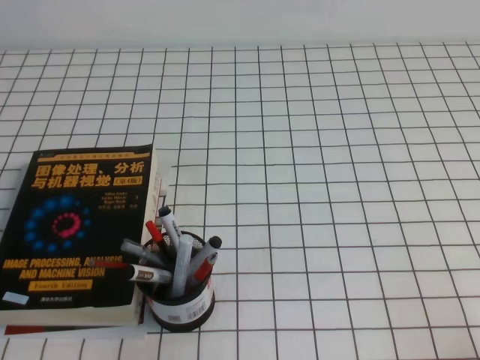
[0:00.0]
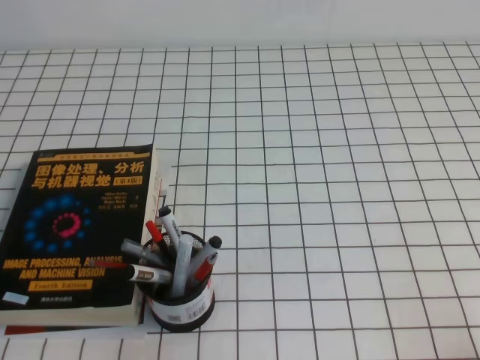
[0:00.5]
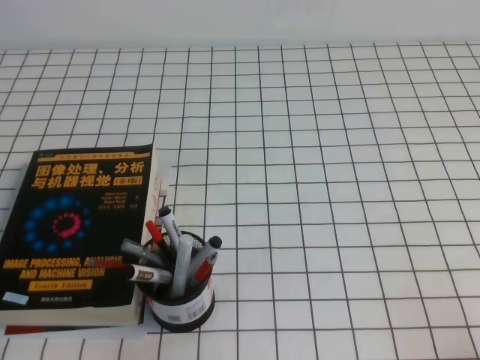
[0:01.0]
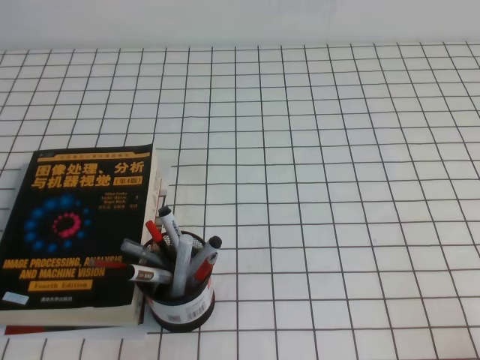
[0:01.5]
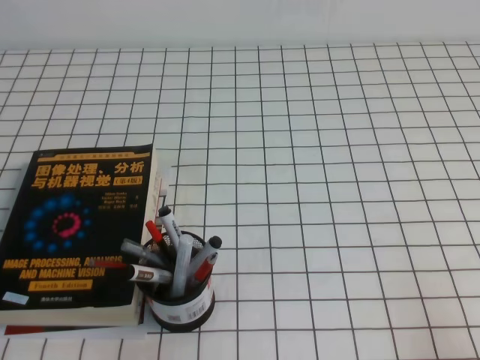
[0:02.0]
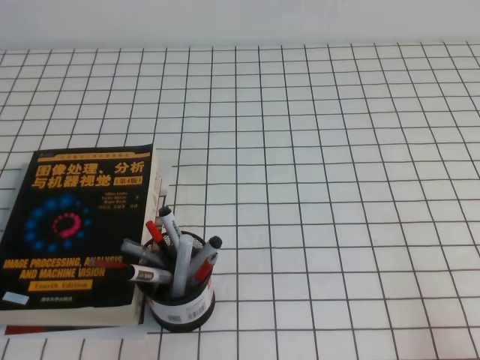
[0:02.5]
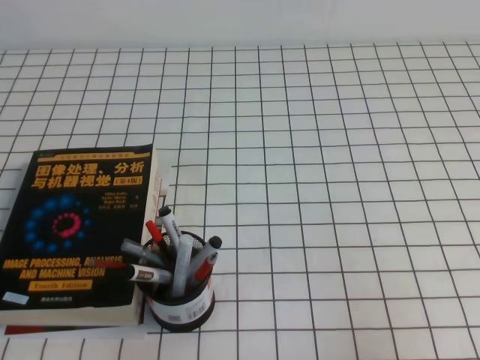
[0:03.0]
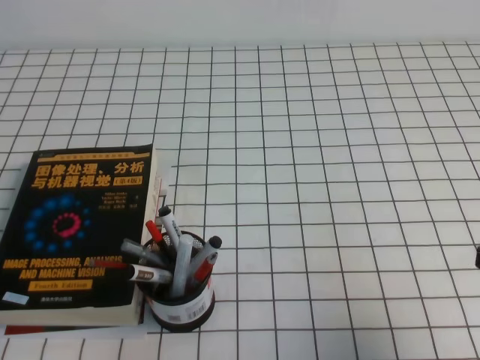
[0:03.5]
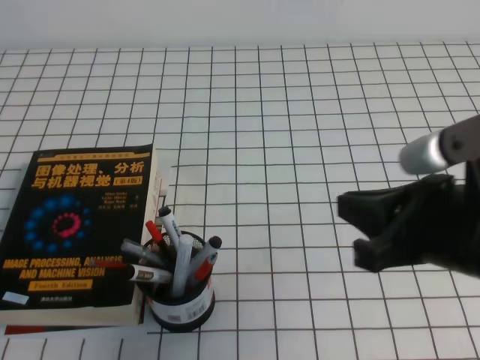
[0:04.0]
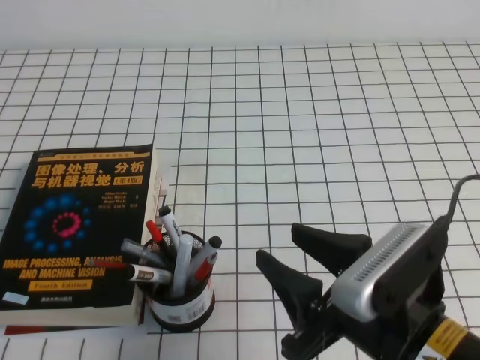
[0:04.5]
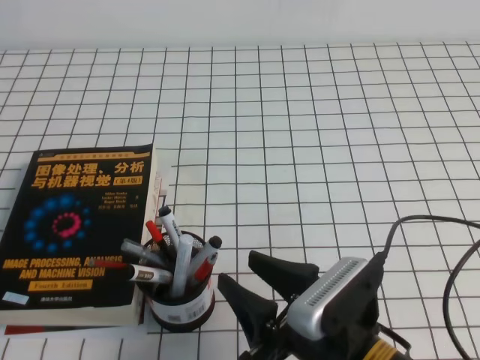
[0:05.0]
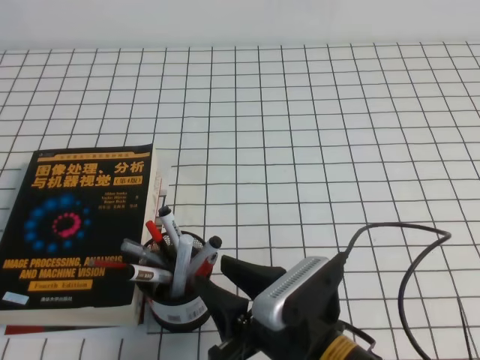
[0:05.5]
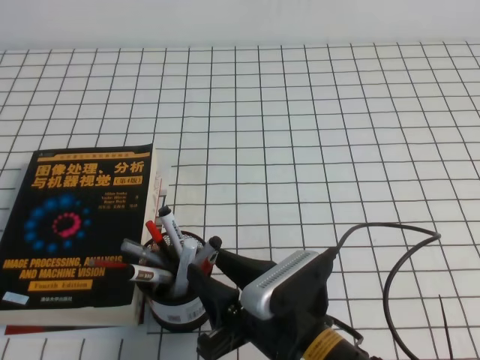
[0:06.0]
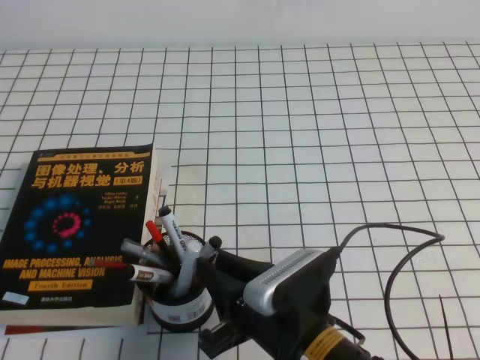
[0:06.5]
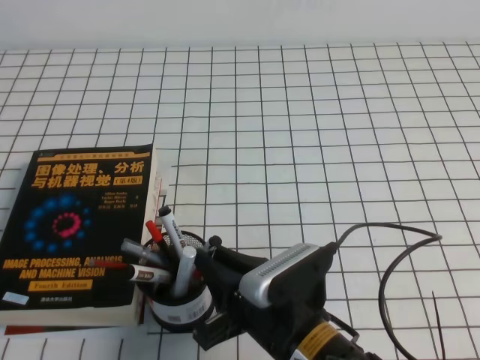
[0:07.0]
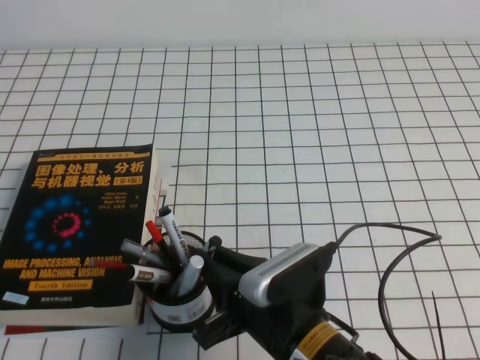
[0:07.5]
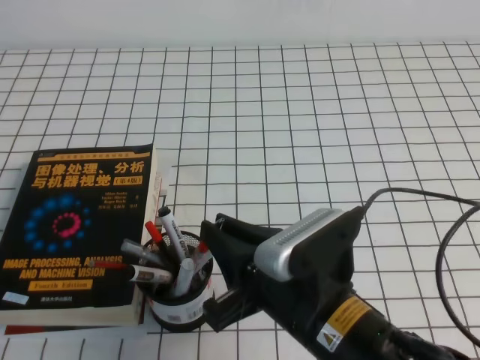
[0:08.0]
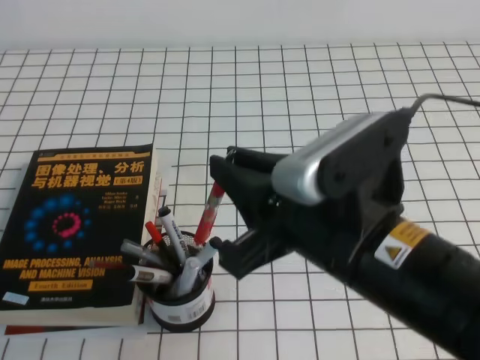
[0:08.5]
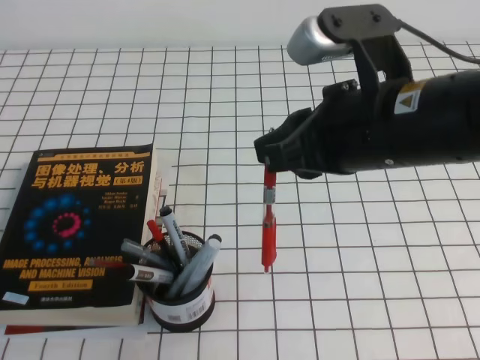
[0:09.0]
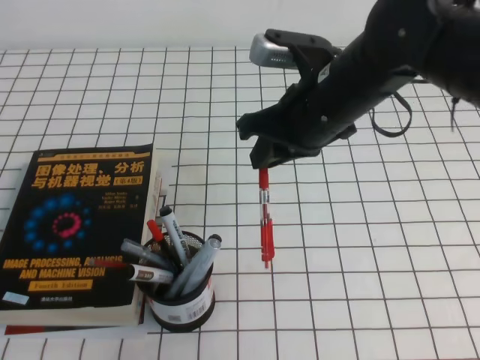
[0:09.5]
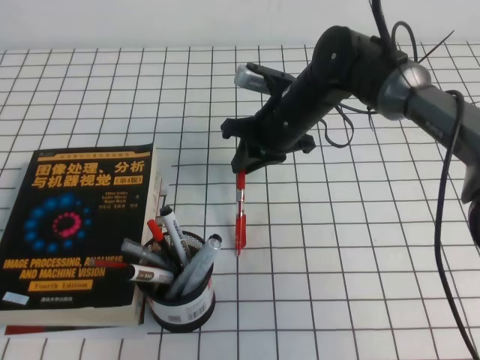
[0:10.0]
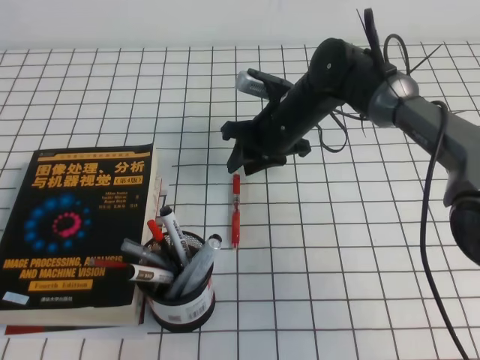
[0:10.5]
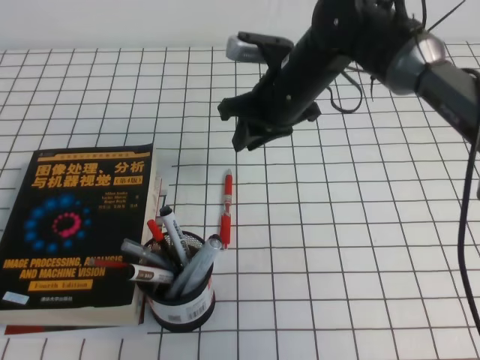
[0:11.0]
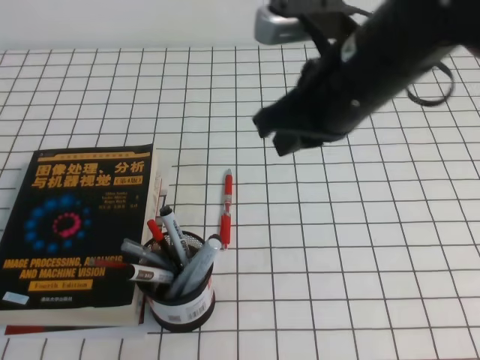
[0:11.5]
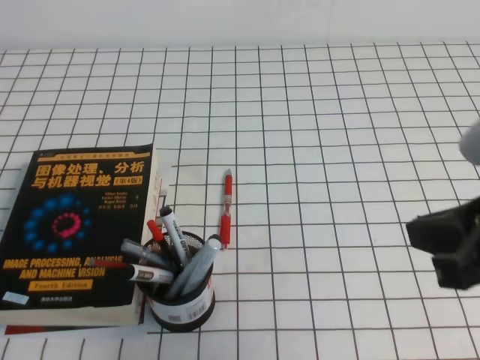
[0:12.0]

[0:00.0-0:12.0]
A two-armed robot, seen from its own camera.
0:02.0 to 0:04.0: The right gripper travels to the left, forward and upward by roughly 20 cm.
0:04.0 to 0:06.0: The right gripper heads to the left and downward, covering roughly 20 cm, and opens.
0:06.0 to 0:08.0: The right gripper travels upward by about 5 cm, and closes up.
0:08.0 to 0:10.0: The right gripper heads forward, covering some 30 cm.
0:10.0 to 0:12.0: The right gripper is displaced backward, to the right and upward by roughly 35 cm.

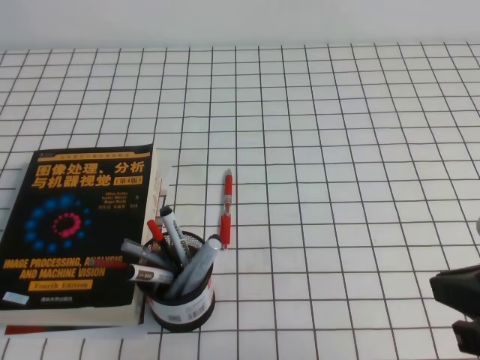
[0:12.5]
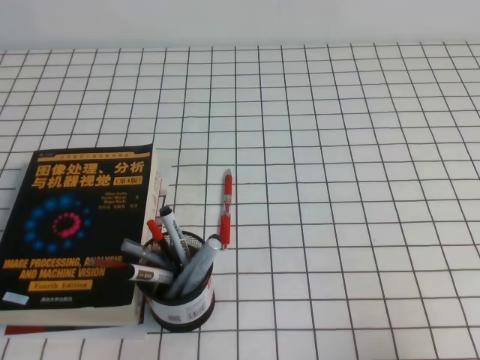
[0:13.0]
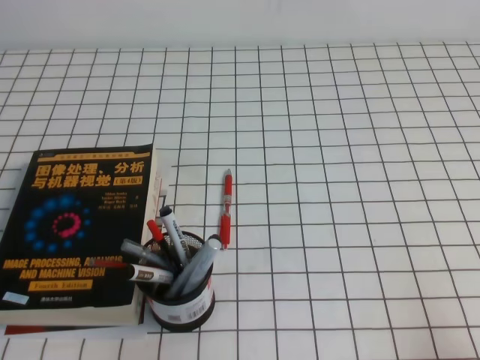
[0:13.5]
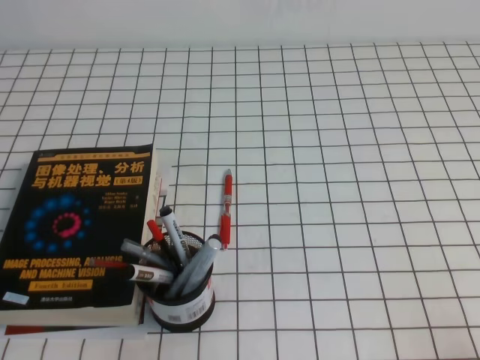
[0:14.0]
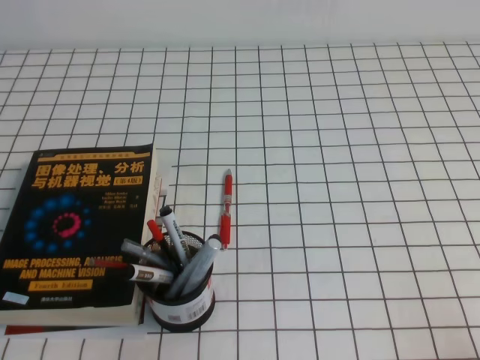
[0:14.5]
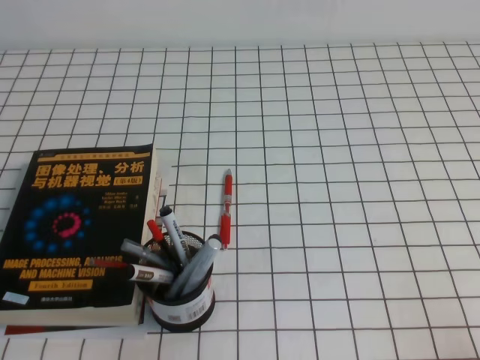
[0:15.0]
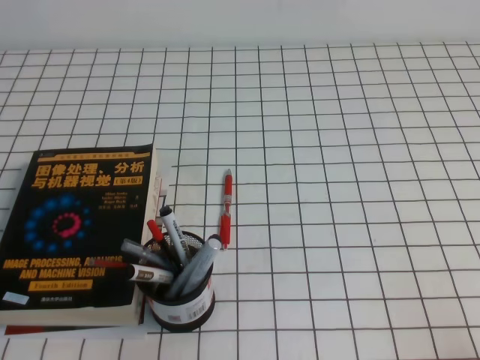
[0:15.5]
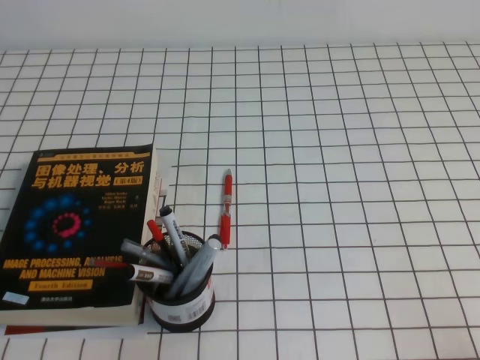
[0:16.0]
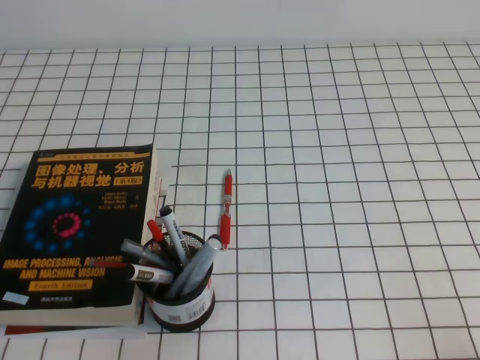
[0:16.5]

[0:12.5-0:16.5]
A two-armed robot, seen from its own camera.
Step, 0:12.5 to 0:16.5: Pick up the pen from the pen holder.
0:12.5 to 0:14.5: The right gripper moves downward, to the right and backward, about 20 cm.
0:14.5 to 0:16.5: The two grippers keep their place.
